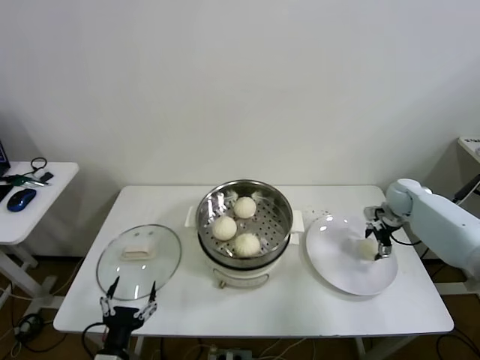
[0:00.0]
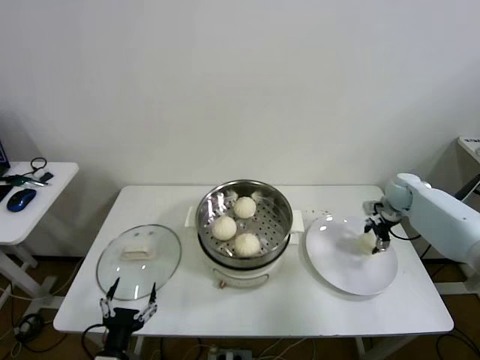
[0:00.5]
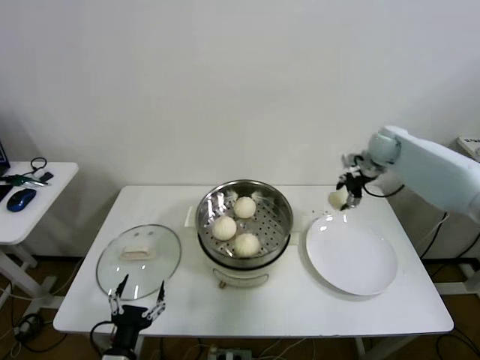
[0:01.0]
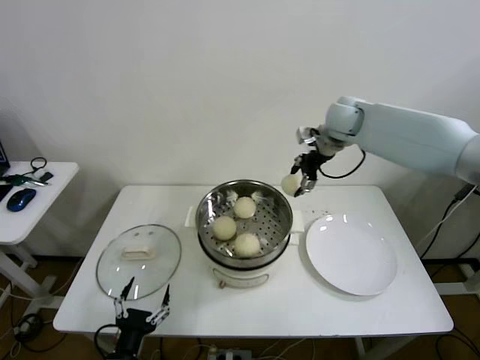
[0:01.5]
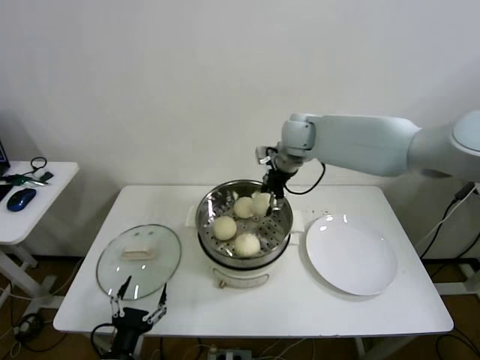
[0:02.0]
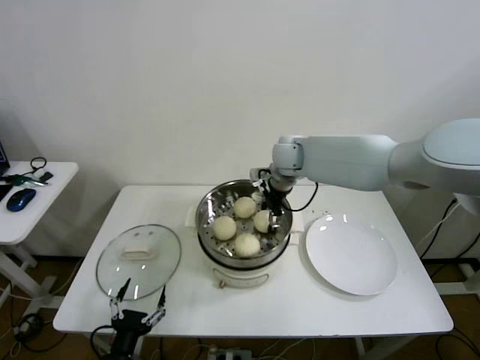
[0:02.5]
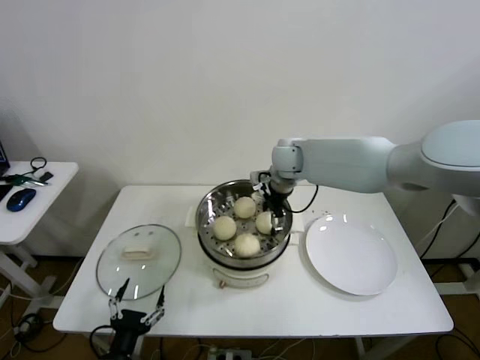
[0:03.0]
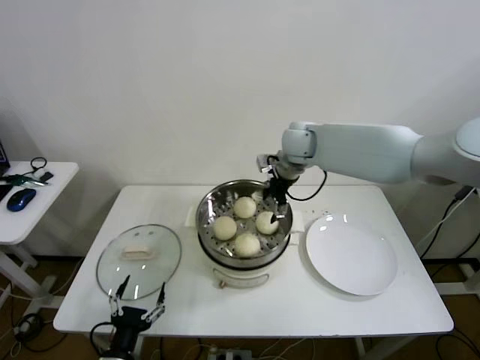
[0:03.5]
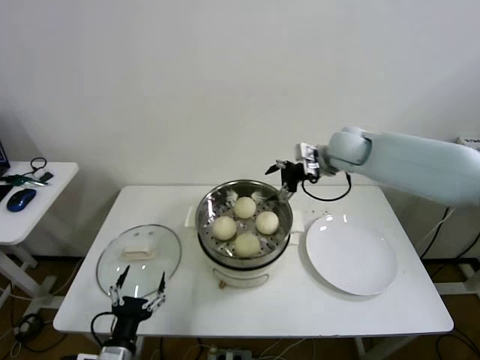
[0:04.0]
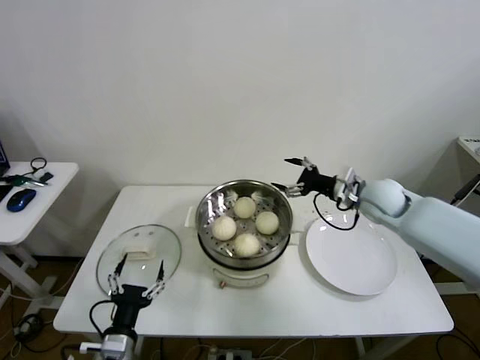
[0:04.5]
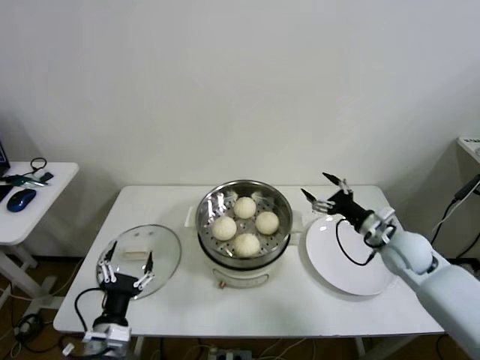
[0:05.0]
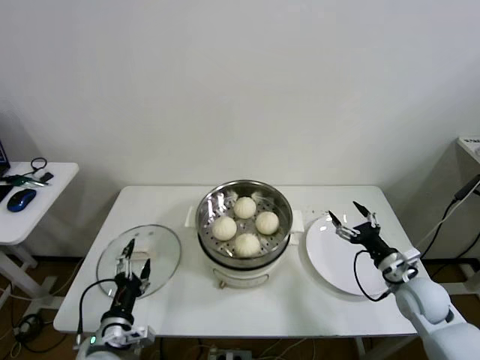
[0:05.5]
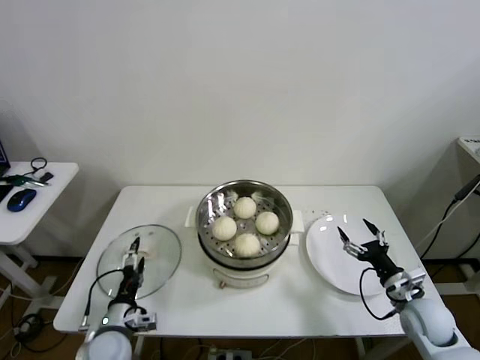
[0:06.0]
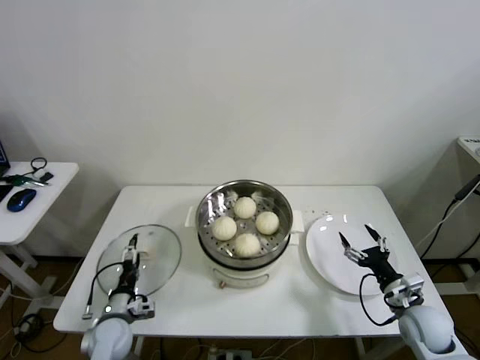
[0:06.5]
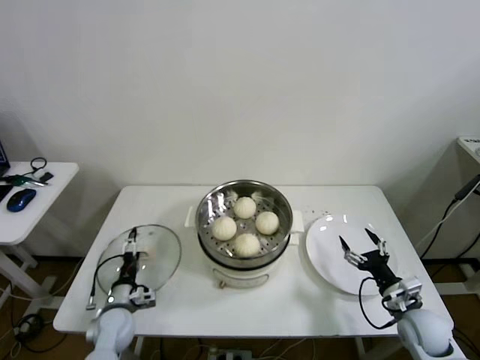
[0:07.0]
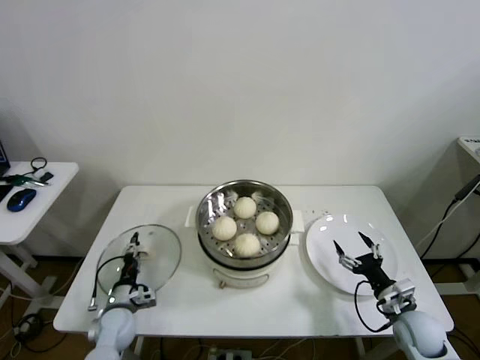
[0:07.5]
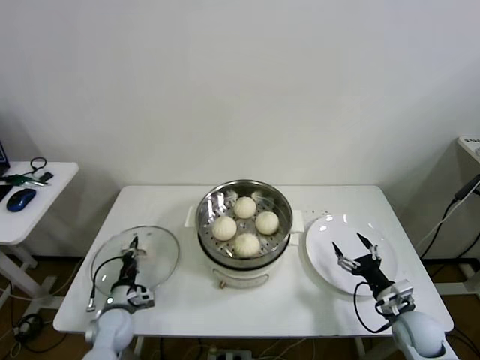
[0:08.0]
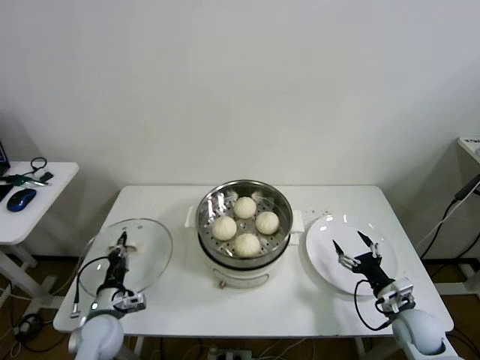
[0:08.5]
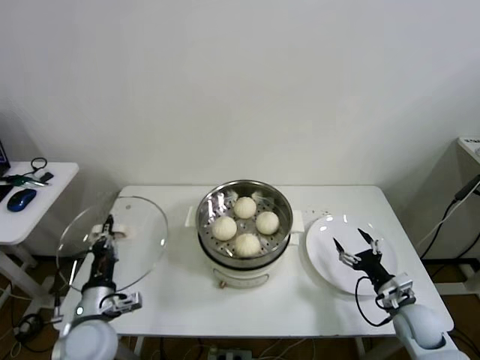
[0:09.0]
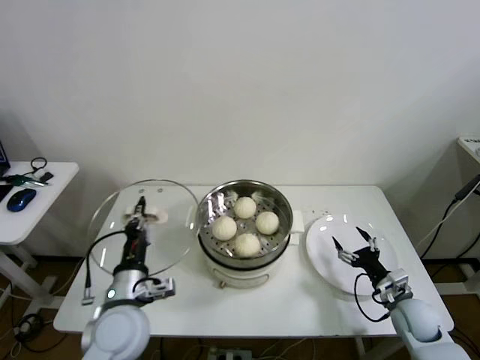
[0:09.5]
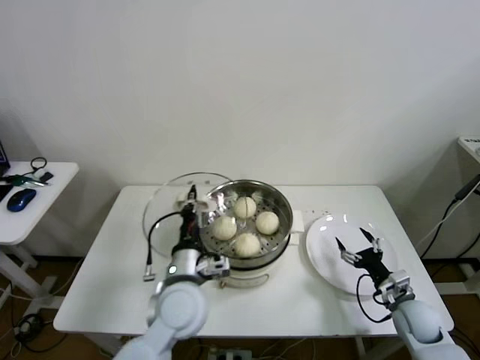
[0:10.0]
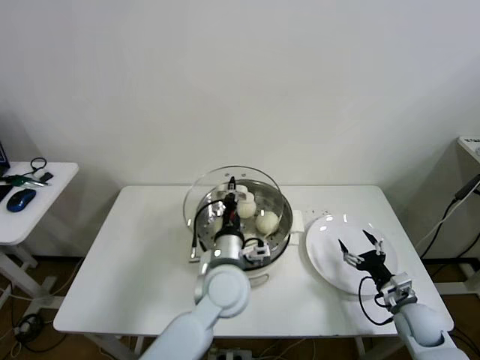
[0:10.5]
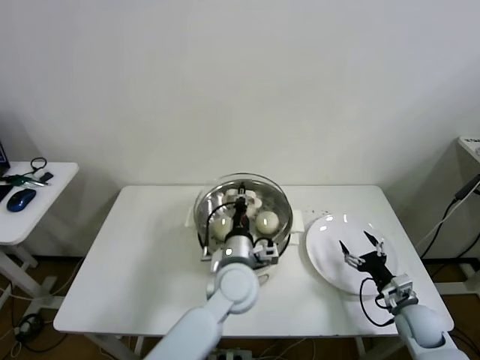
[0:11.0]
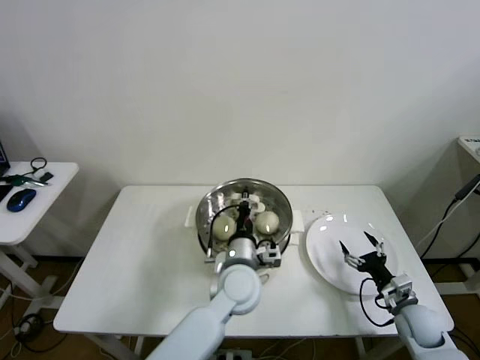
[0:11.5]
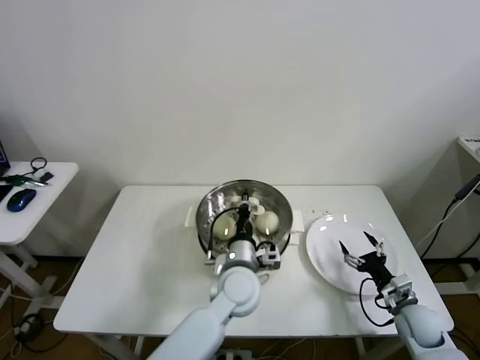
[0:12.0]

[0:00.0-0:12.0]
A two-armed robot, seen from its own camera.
Step, 0:00.5 to 0:03.0: Place the baozi on the steamer with right gripper.
Step, 0:03.5 to 0:07.5: Grasp the pot lid with left gripper.
0:00.0 to 0:02.0: The right gripper goes about 35 cm to the left and upward, and closes up.
0:02.0 to 0:04.0: The right gripper goes some 10 cm to the right, and opens its fingers.
0:04.0 to 0:06.0: The left gripper is displaced forward by some 10 cm; the right gripper travels downward, backward and to the right by approximately 40 cm.
0:06.0 to 0:08.0: The left gripper moves forward and downward, some 10 cm, and closes its fingers.
0:08.0 to 0:10.0: The left gripper shifts about 30 cm upward and to the right.
0:10.0 to 0:12.0: The left gripper travels to the right and forward by about 15 cm.

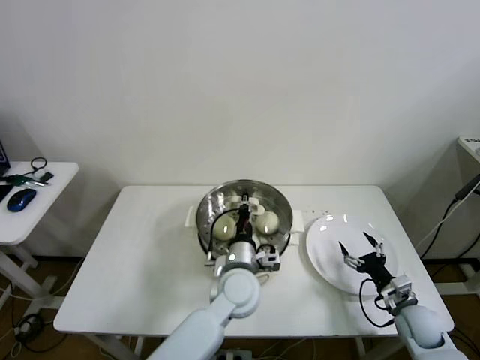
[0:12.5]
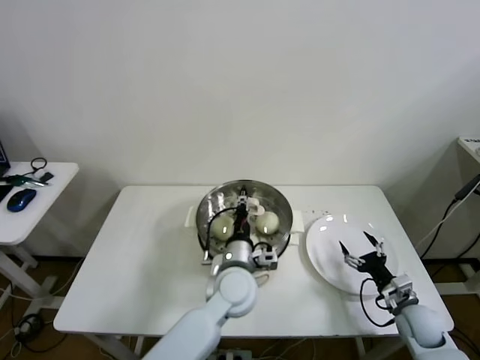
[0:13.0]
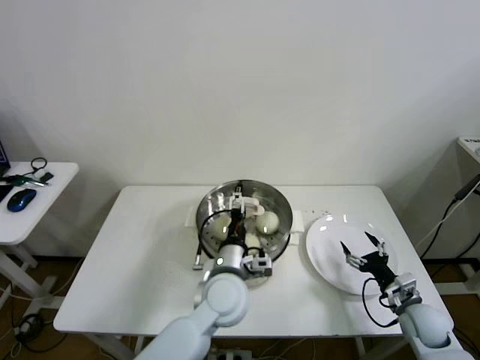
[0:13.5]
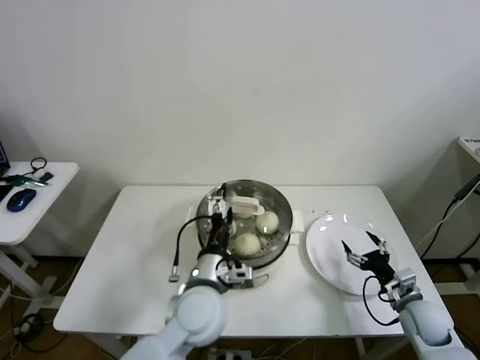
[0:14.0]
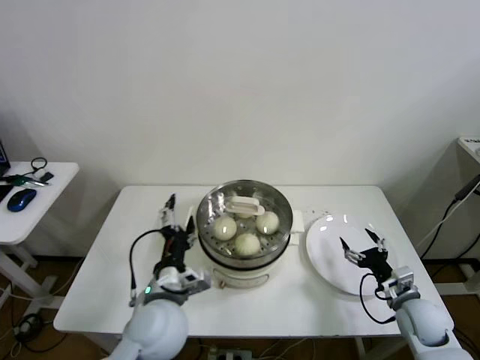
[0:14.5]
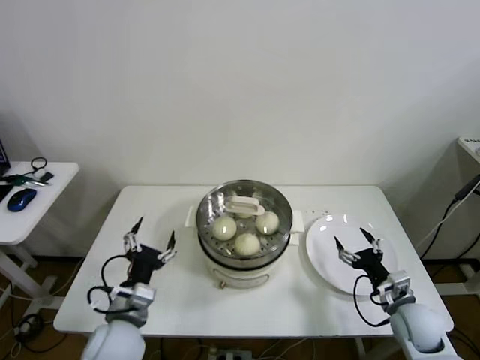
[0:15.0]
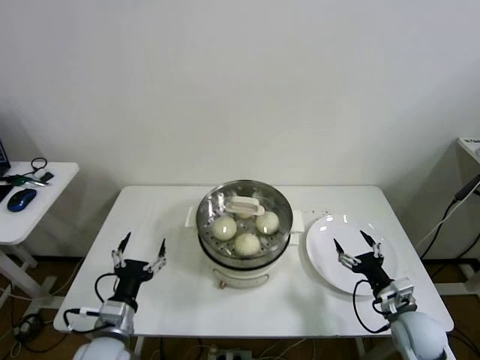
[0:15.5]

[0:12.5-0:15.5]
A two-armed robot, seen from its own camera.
0:12.5 to 0:14.0: The left gripper goes approximately 10 cm to the left and backward, and opens up.
0:14.0 to 0:15.5: The left gripper heads to the left, covering roughly 20 cm. The right gripper shifts by about 5 cm.
